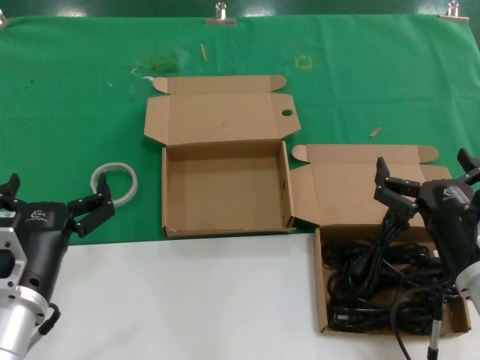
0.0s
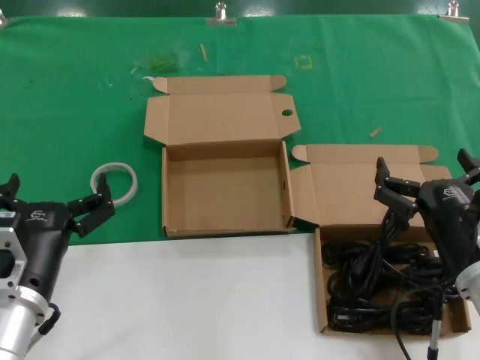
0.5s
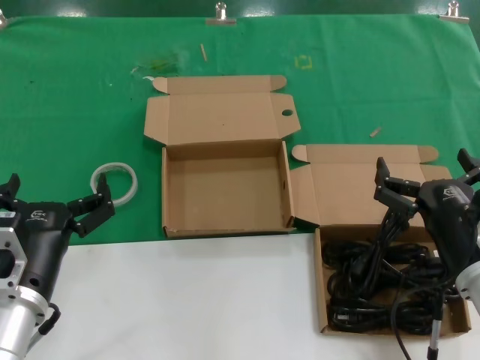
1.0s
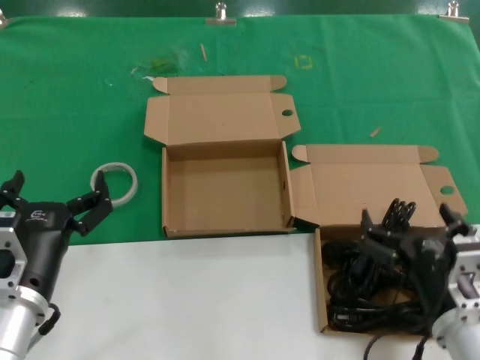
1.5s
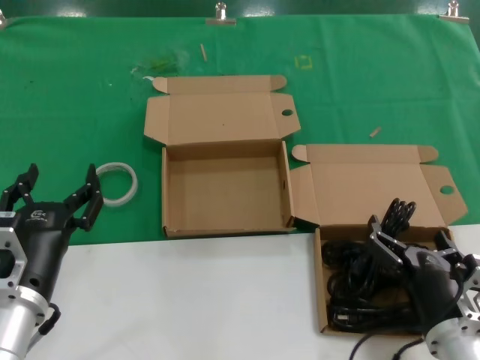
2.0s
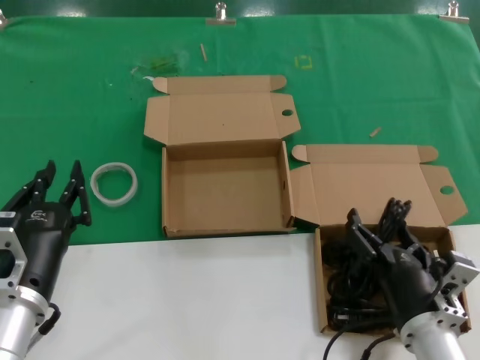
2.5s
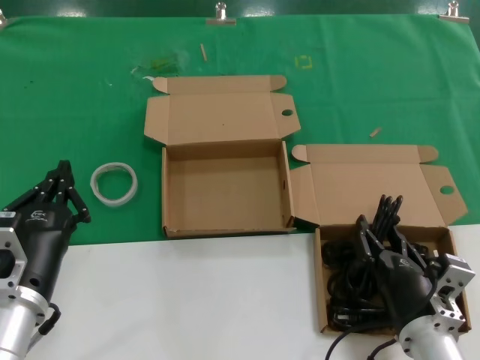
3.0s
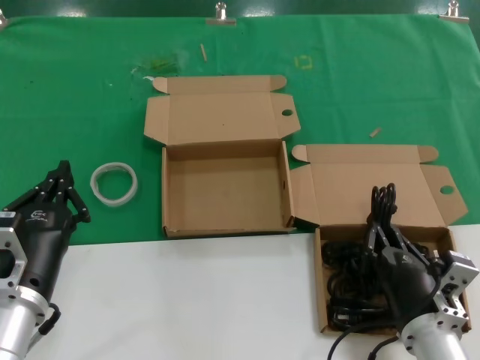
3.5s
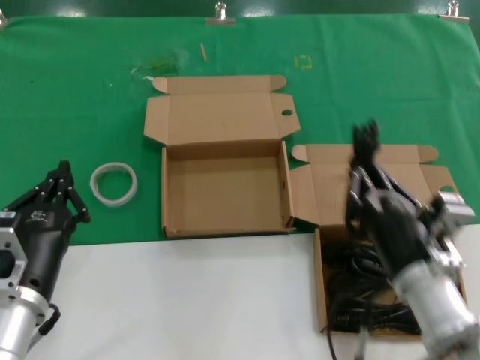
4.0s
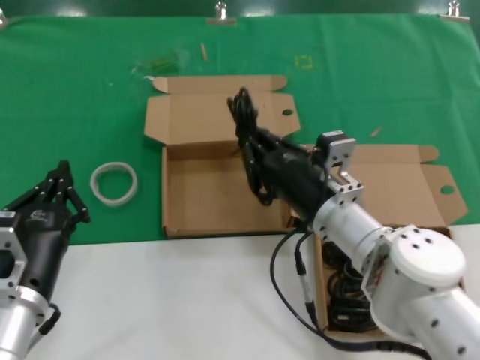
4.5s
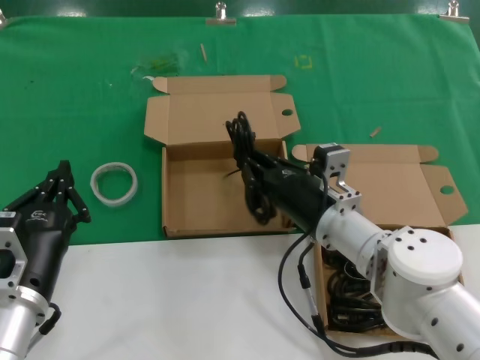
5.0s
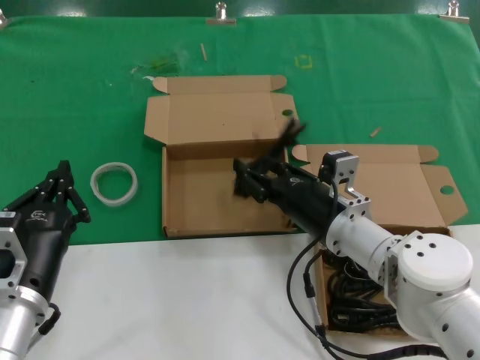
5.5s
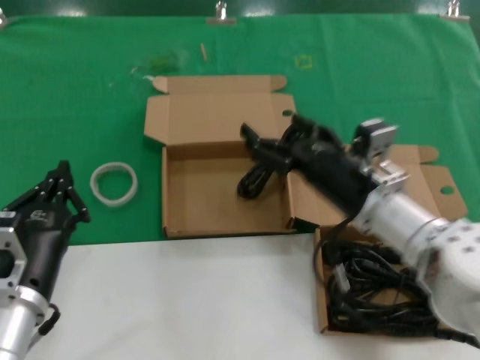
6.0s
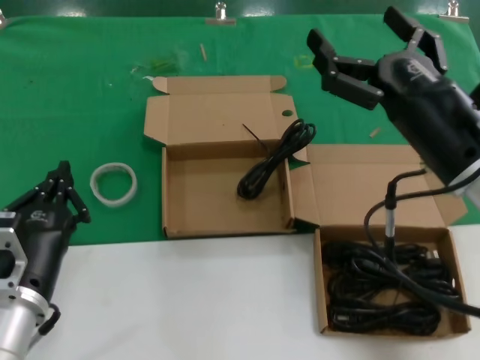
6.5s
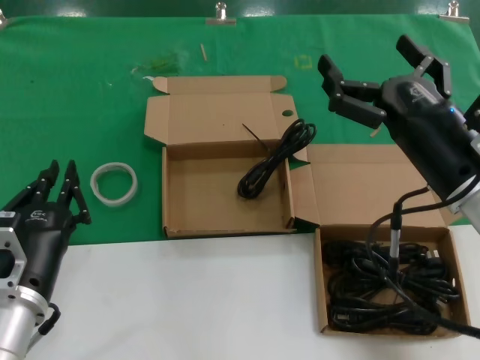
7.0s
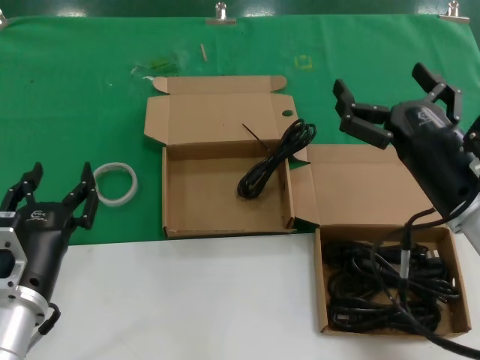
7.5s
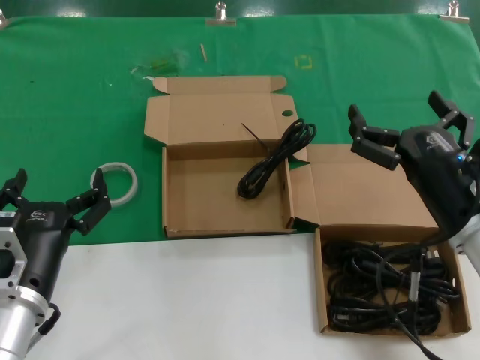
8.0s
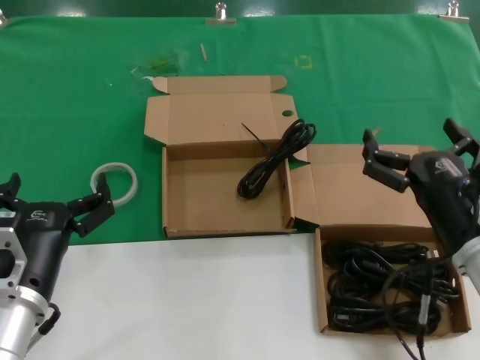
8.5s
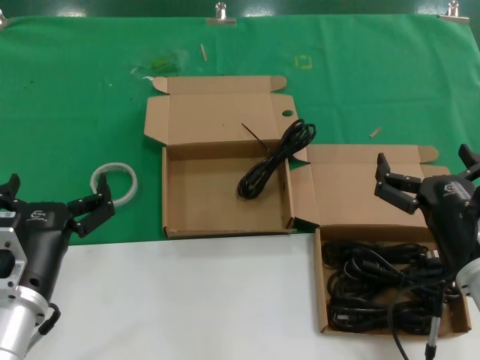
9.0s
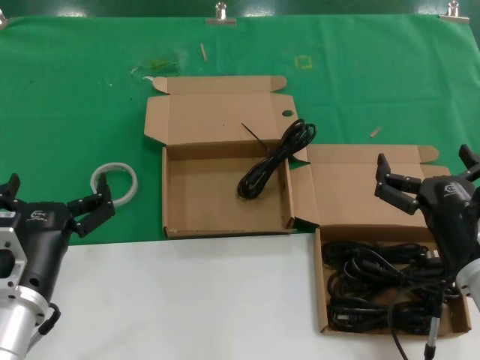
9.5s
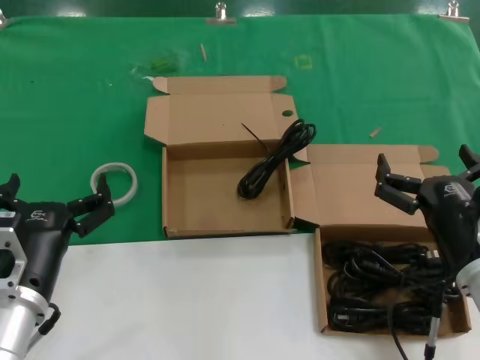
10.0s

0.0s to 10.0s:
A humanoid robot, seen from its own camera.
Task of the whole recording: Pick up the power cord from the box containing it and place it in another box.
Step, 0.0s to 3.0s: Grasp the data cable.
Step, 3.5s to 6.0s: Place the data cable in the another box.
0.0s to 2.0s: The right hand travels downward by roughly 10 cm.
2.0s to 4.0s: The right hand is displaced upward by roughly 5 cm.
4.0s to 6.0s: The right hand travels forward and upward by some 10 cm.
6.0s to 8.0s: The right hand heads backward and to the right, covering approximately 10 cm, and reaches some 10 cm upward, then returns.
8.0s to 10.0s: The right hand moves about 5 cm.
